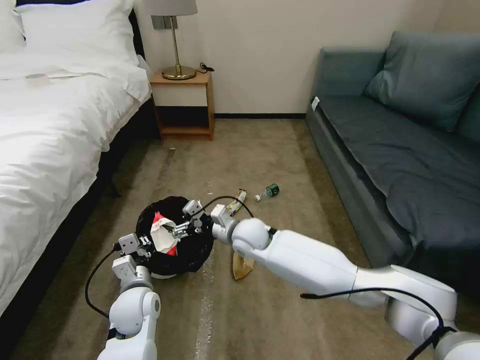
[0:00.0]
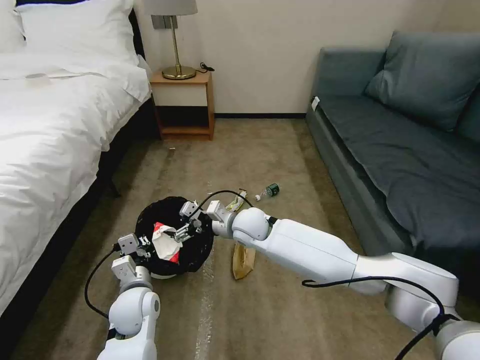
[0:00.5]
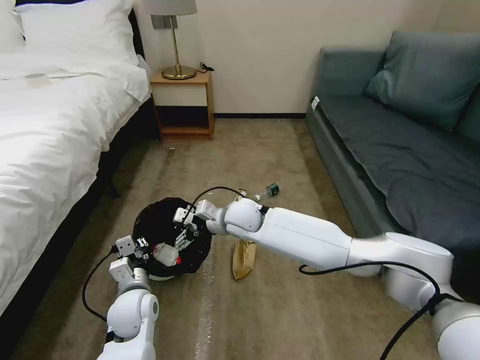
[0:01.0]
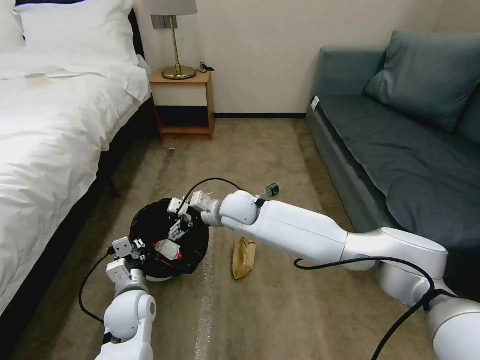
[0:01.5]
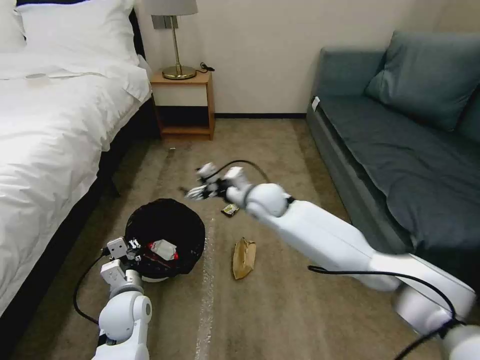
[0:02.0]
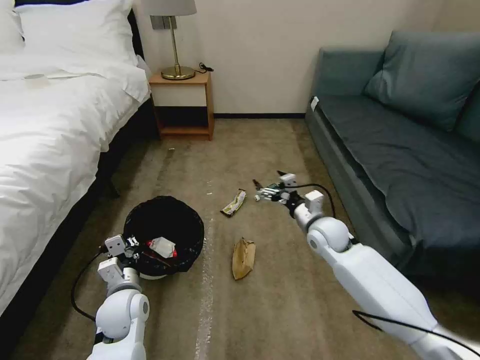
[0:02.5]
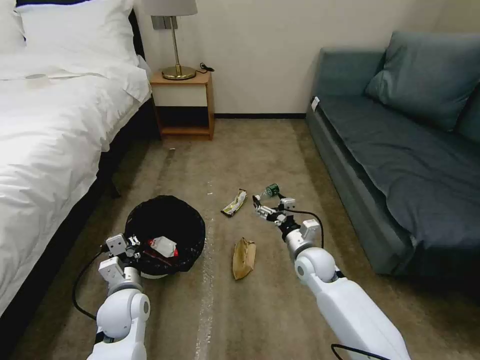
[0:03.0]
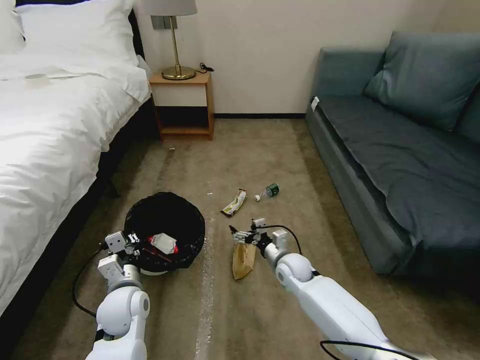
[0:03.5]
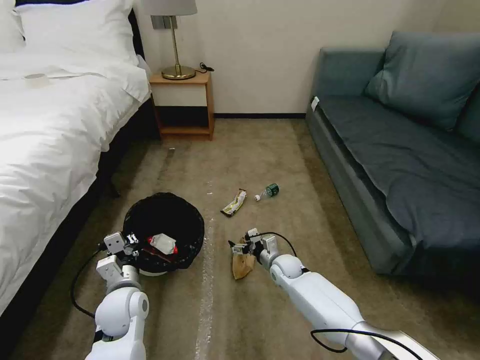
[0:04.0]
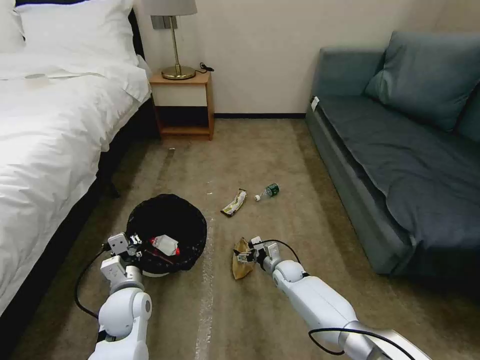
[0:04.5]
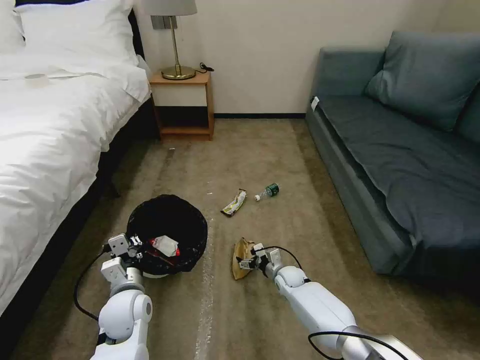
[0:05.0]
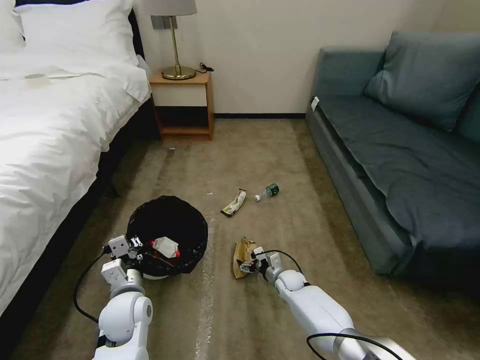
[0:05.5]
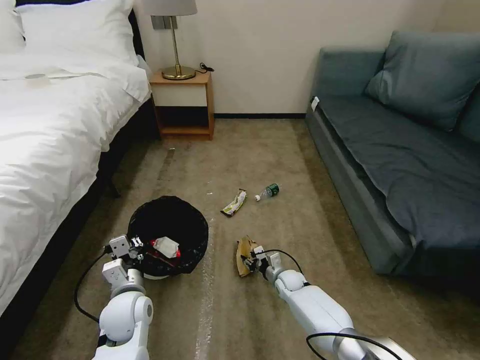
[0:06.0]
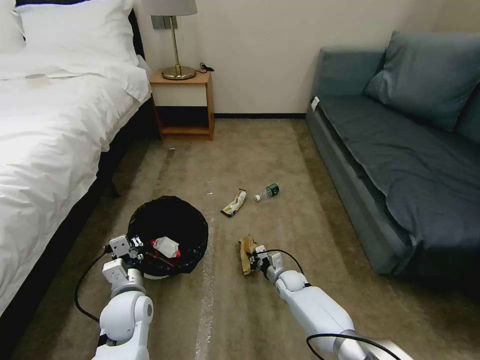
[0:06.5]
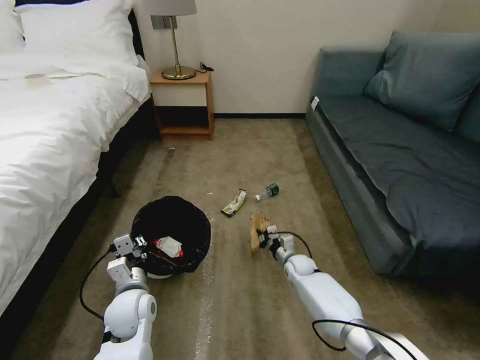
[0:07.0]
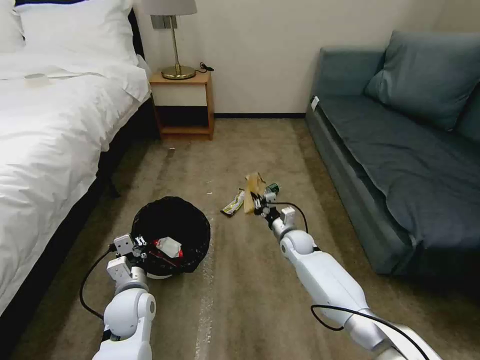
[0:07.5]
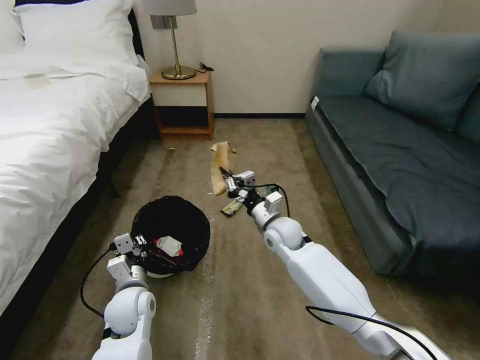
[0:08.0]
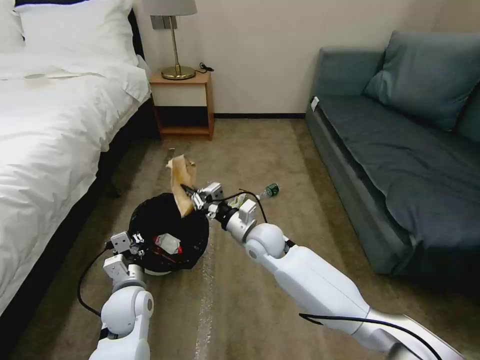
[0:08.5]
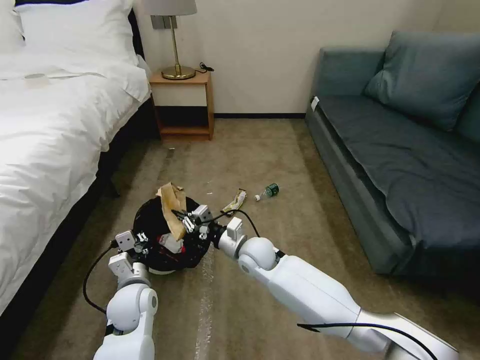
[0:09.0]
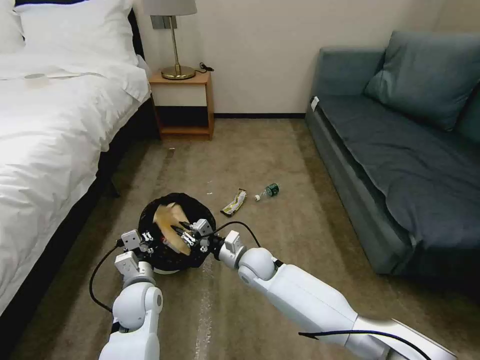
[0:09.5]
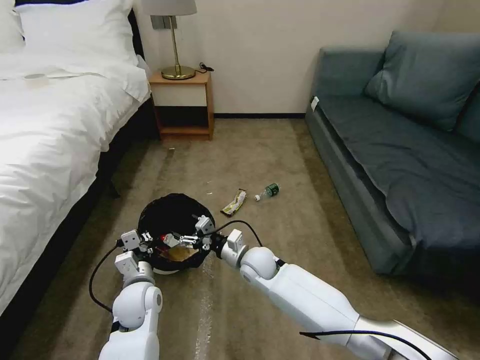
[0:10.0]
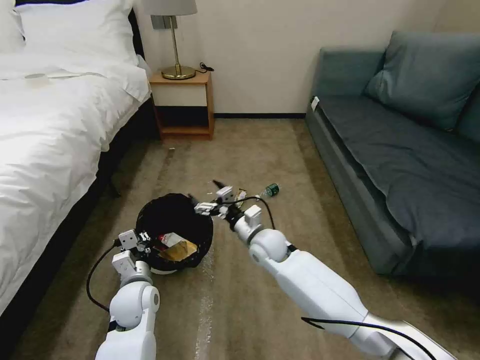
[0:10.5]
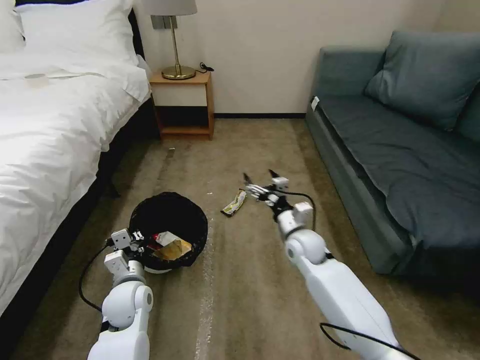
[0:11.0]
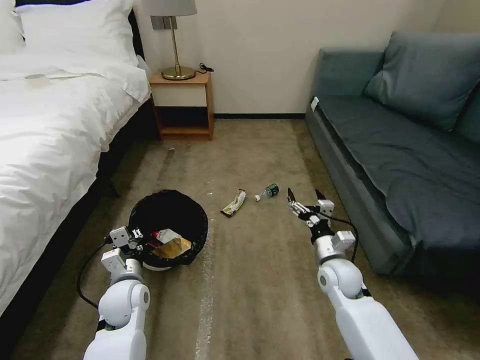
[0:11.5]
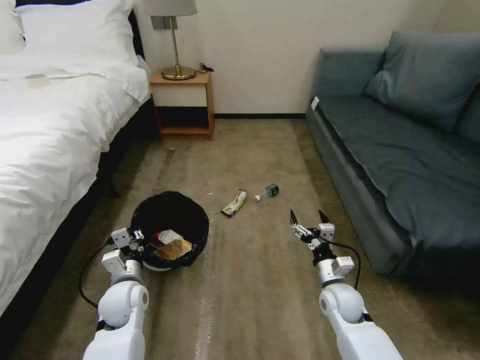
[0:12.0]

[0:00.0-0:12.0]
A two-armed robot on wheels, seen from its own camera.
Task of the whole recording: Pick up the trash bin, then pick up the garbage on the floor and place it into the trash bin.
0:00.0 to 0:02.0: The right gripper is displaced upward, forward and to the right by about 10 cm.
0:02.0 to 0:04.0: The right gripper is displaced downward by approximately 25 cm.
0:04.0 to 0:06.0: The right gripper goes about 5 cm downward, and closes.
0:06.0 to 0:08.0: The right gripper is displaced upward by roughly 25 cm, and closes.
0:08.0 to 0:10.0: The right gripper moves downward, to the left and backward, some 10 cm, and opens up.
0:10.0 to 0:12.0: The right gripper is displaced to the right and backward by approximately 20 cm.

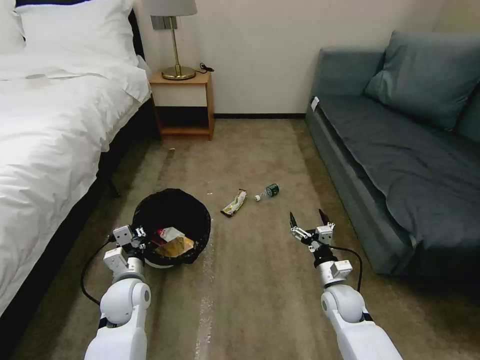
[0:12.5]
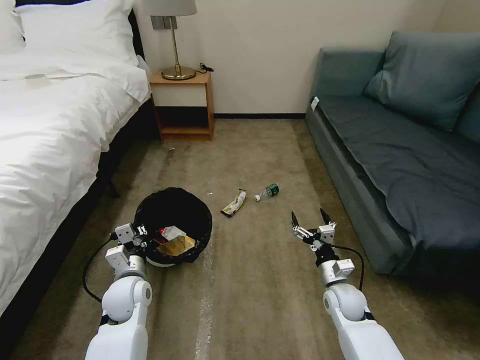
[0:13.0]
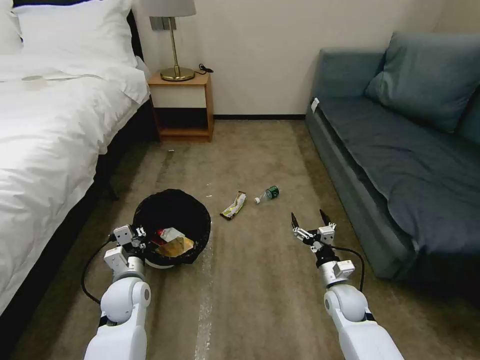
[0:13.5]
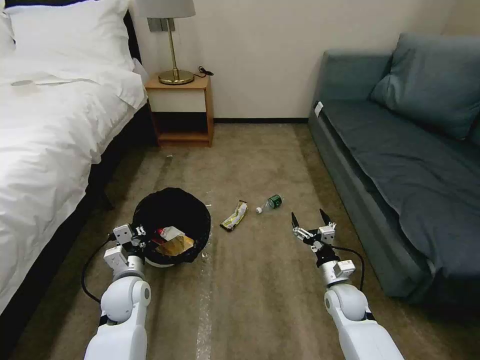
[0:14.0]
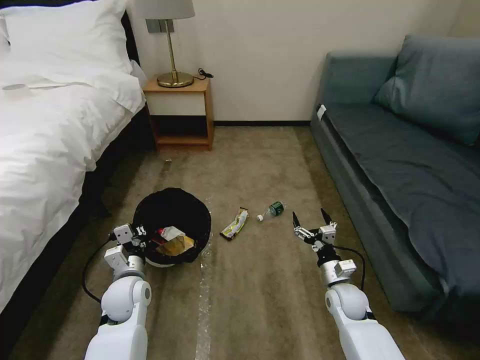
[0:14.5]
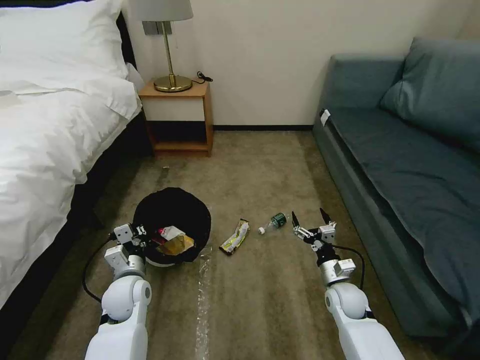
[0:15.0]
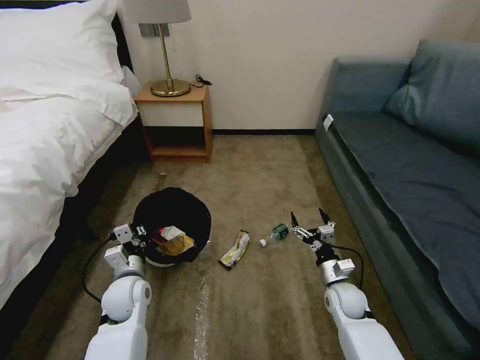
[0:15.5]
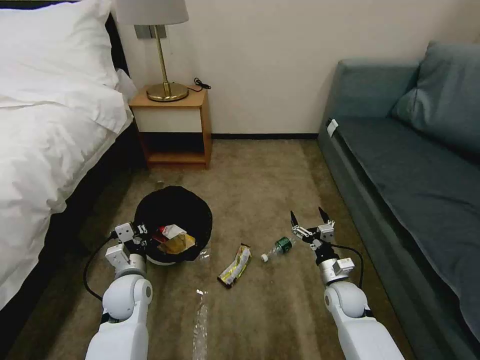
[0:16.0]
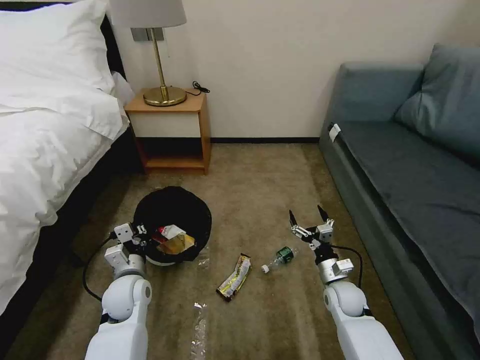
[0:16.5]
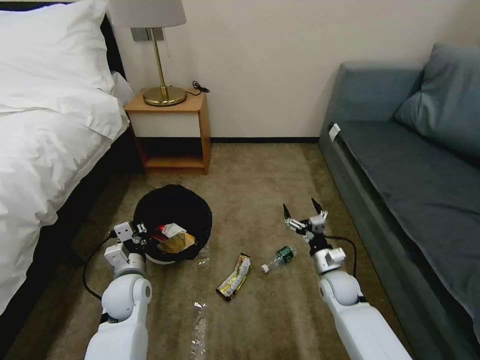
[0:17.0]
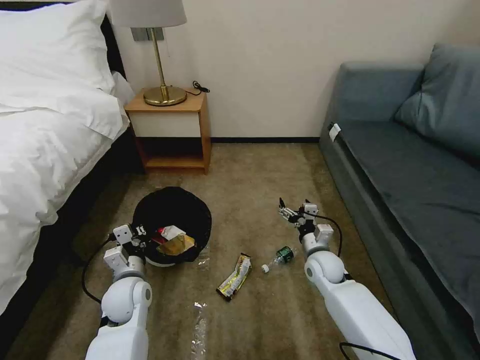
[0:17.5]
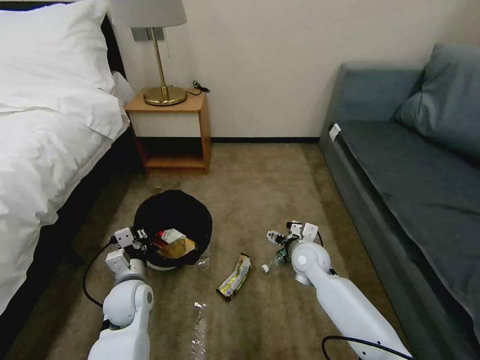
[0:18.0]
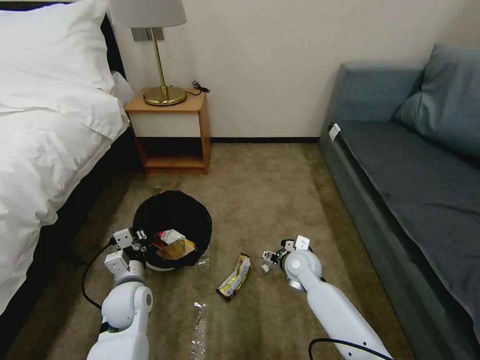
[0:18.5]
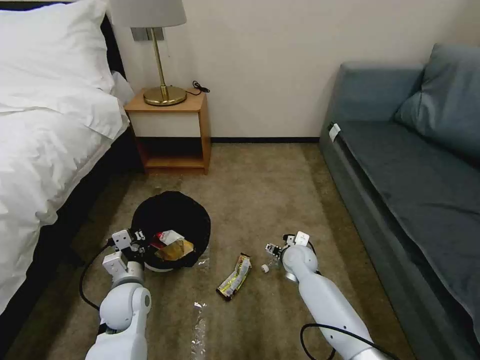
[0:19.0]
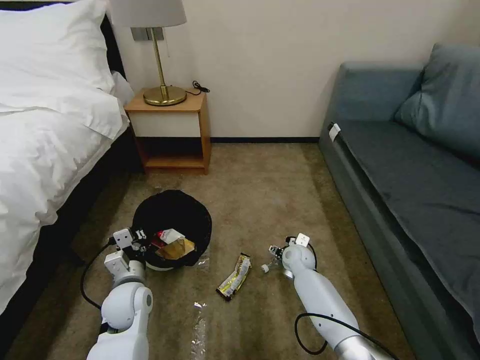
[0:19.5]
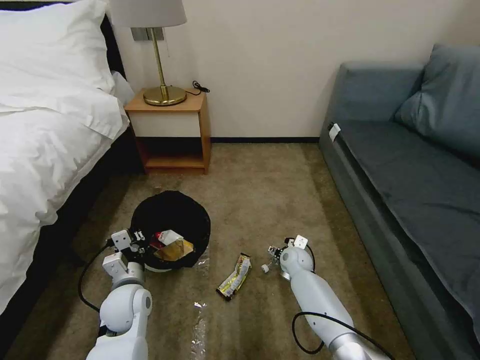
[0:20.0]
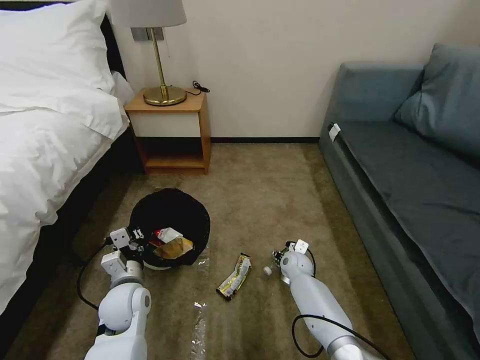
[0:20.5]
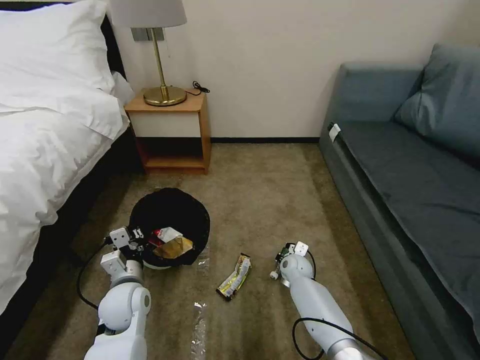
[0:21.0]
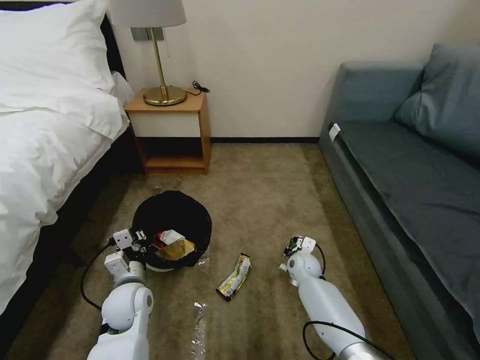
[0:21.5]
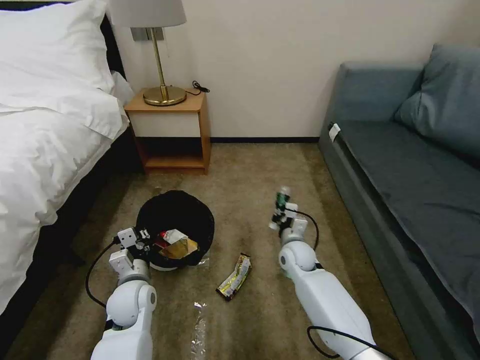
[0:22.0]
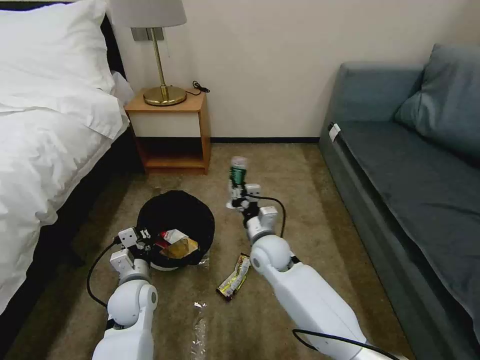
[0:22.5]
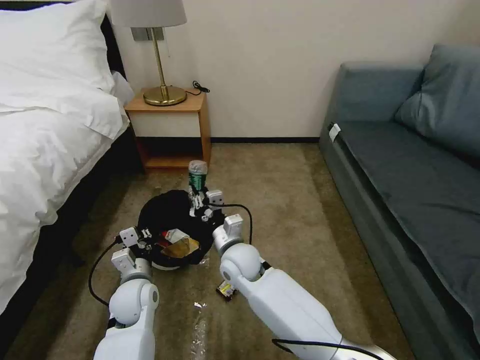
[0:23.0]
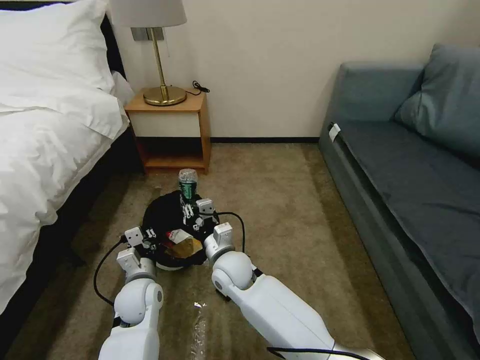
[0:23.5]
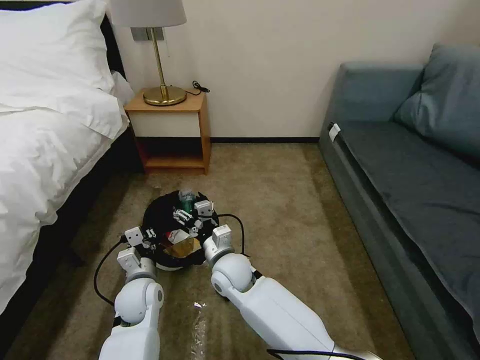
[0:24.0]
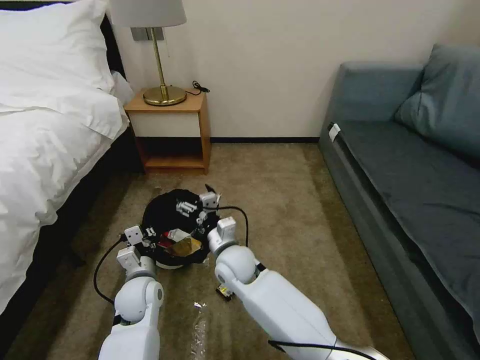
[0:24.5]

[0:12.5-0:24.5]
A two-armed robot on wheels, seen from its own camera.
Task of the whole recording: Pick up the trash bin, then pick up the garbage on the floor and place it into the trash bin.
0:12.5 to 0:14.5: The grippers stay close to where they were, moving slightly.
0:16.5 to 0:18.5: The right gripper moves to the left, forward and upward, about 15 cm.
0:18.5 to 0:20.5: The right gripper is displaced downward and forward by about 10 cm.
0:20.5 to 0:22.5: The right gripper goes roughly 20 cm upward and to the left, and closes up.
0:22.5 to 0:24.5: The right gripper travels to the left by some 10 cm, and opens up.

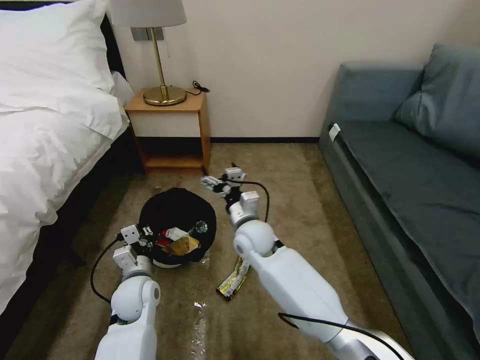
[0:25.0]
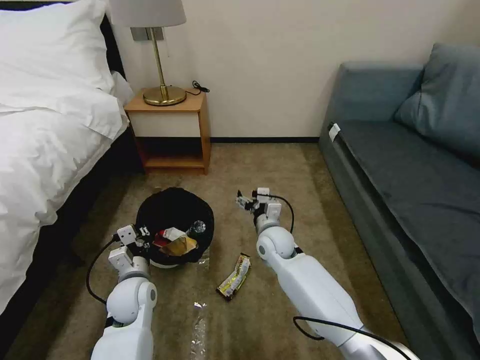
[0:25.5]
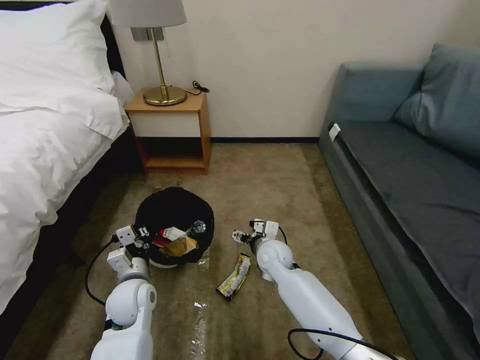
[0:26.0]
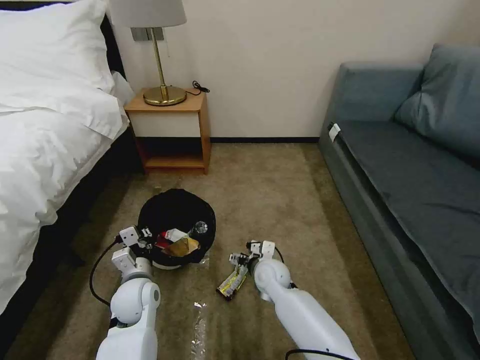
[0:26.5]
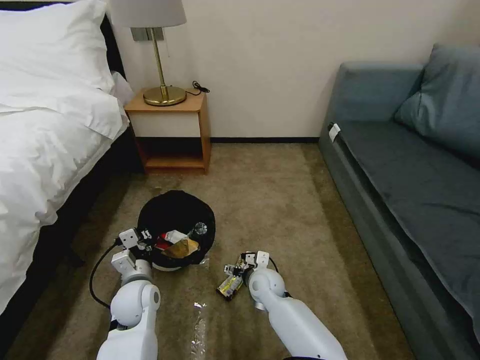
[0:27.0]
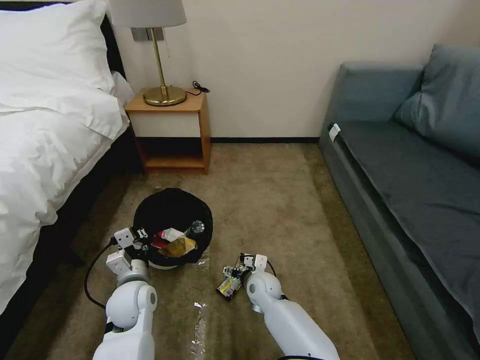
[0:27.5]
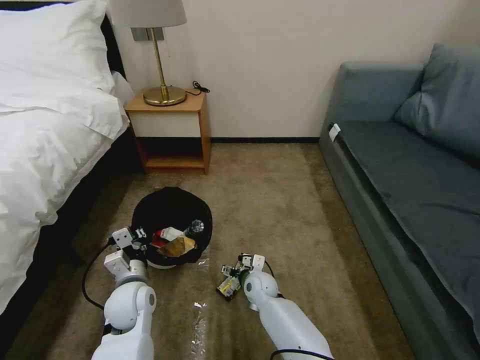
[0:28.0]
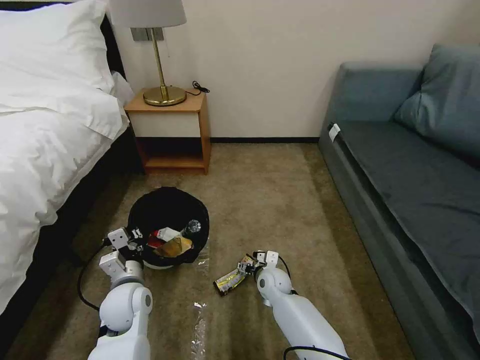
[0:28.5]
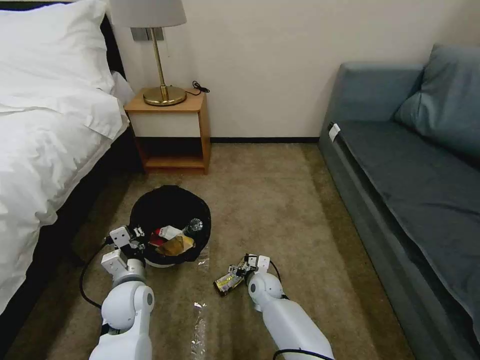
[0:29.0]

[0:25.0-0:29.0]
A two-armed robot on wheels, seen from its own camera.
Task of the whole recording: Pick up the trash bin, then pick up the garbage on the floor and place it into the trash bin.
0:25.0 to 0:27.0: The right gripper shifts some 15 cm downward.
0:27.0 to 0:29.0: The right gripper shifts approximately 5 cm downward.
